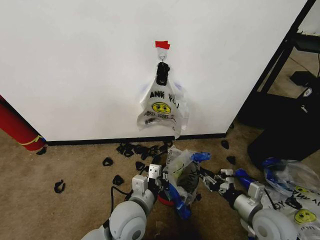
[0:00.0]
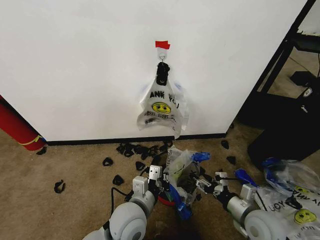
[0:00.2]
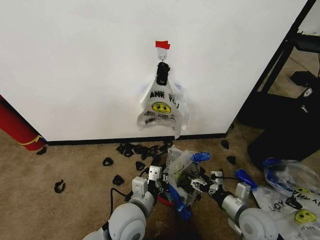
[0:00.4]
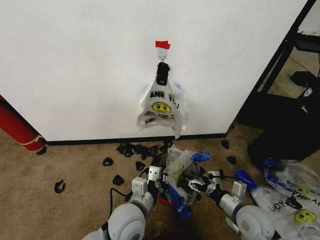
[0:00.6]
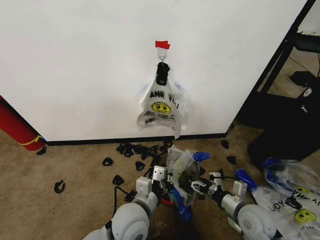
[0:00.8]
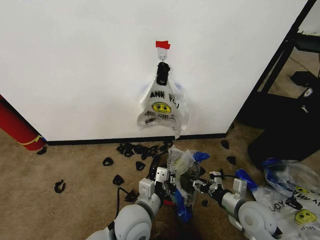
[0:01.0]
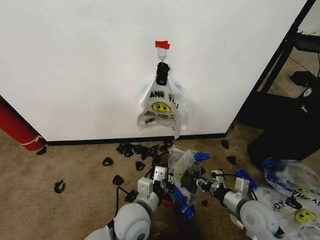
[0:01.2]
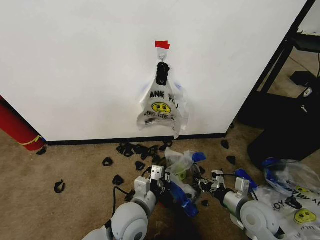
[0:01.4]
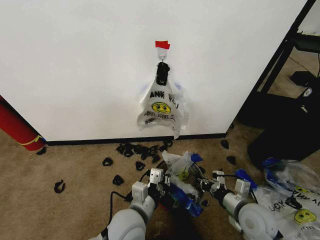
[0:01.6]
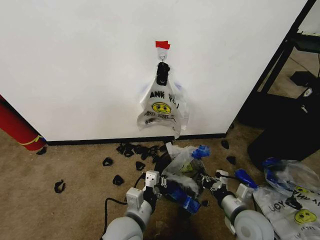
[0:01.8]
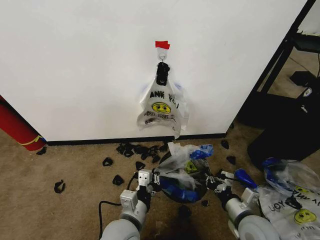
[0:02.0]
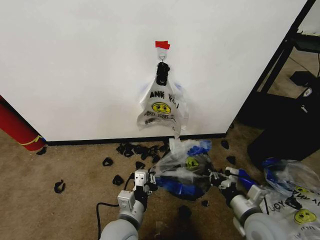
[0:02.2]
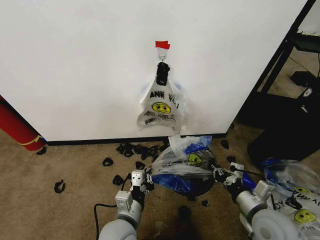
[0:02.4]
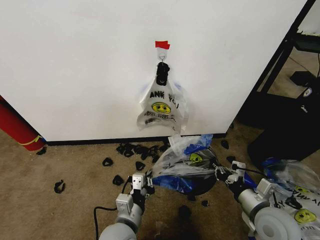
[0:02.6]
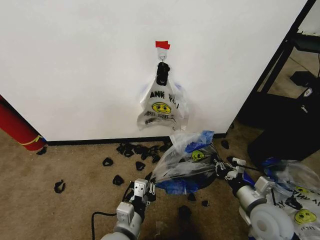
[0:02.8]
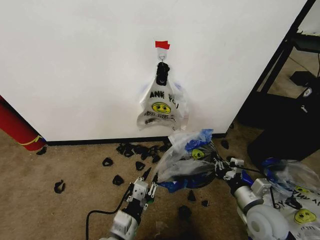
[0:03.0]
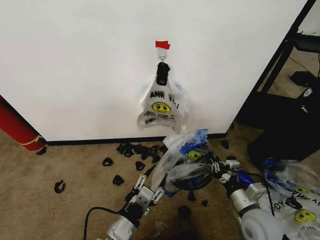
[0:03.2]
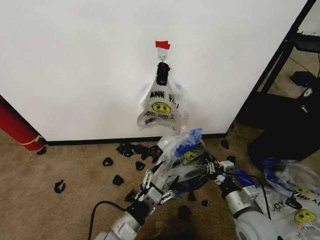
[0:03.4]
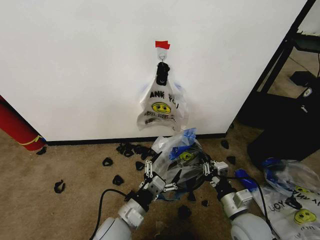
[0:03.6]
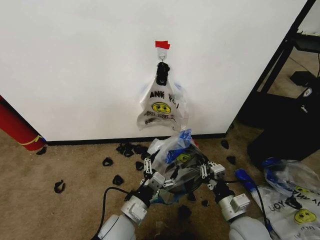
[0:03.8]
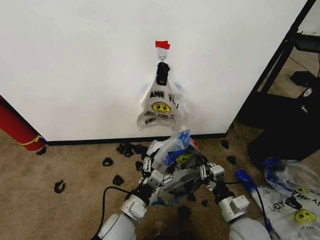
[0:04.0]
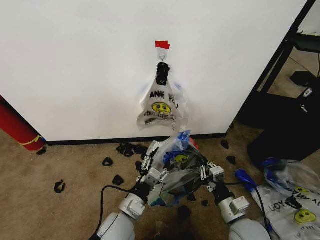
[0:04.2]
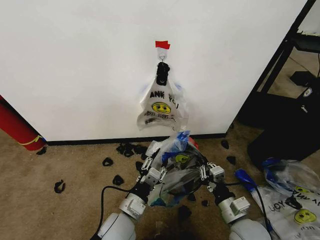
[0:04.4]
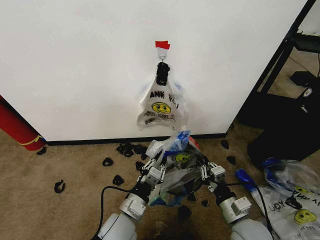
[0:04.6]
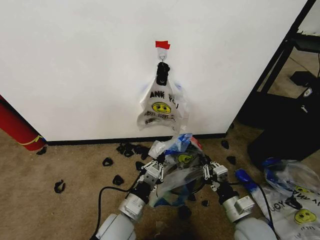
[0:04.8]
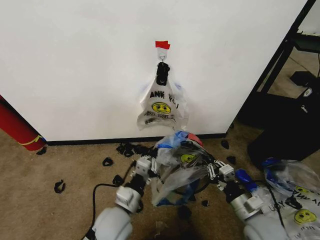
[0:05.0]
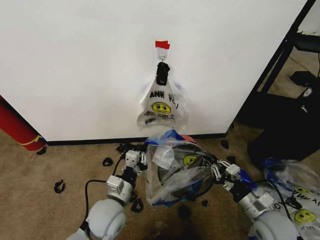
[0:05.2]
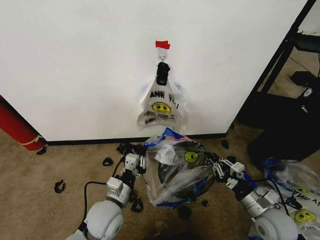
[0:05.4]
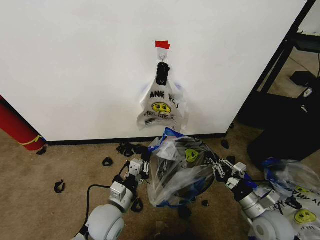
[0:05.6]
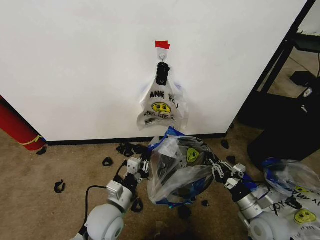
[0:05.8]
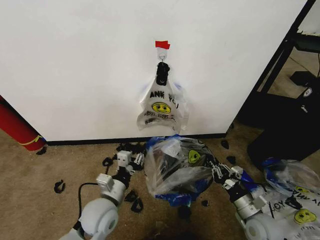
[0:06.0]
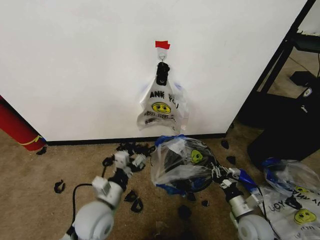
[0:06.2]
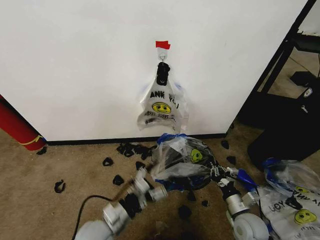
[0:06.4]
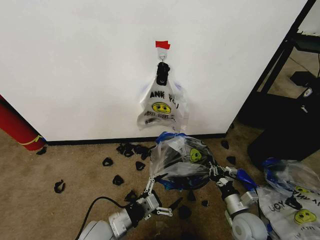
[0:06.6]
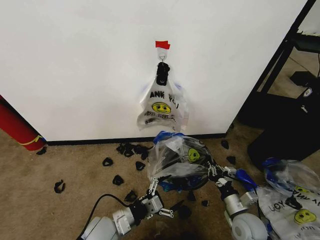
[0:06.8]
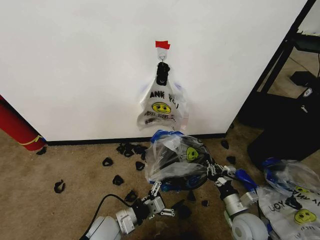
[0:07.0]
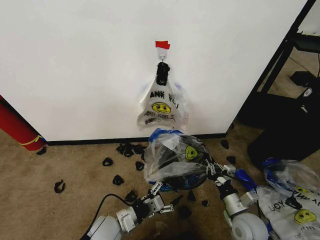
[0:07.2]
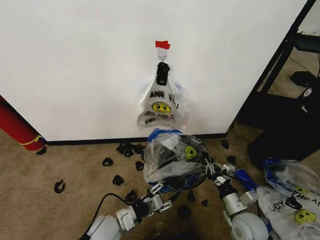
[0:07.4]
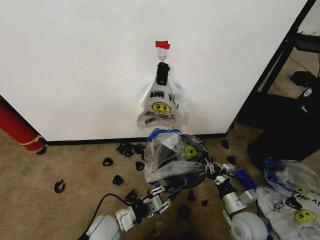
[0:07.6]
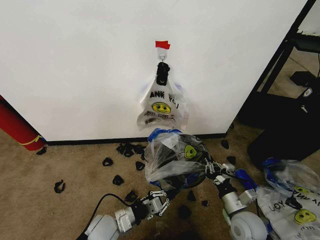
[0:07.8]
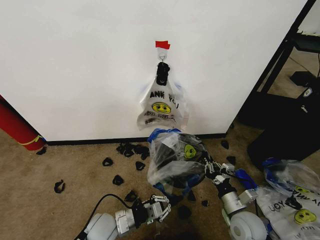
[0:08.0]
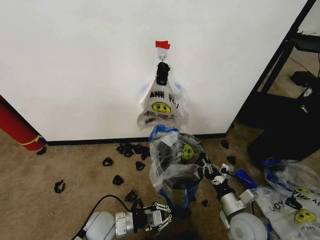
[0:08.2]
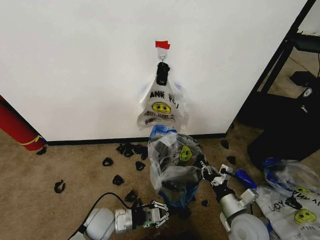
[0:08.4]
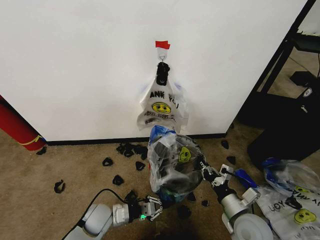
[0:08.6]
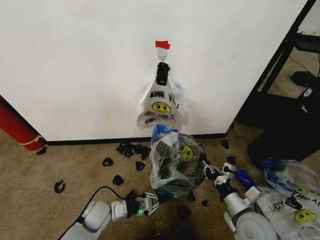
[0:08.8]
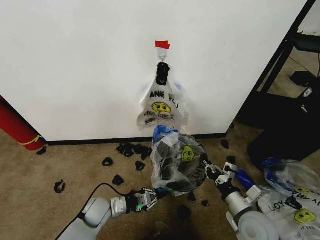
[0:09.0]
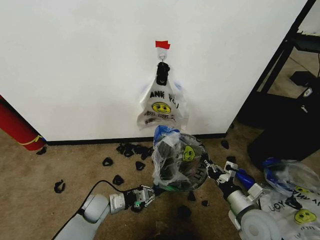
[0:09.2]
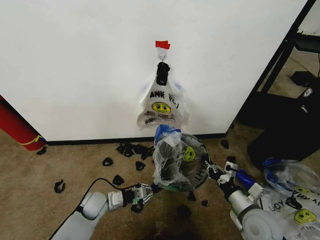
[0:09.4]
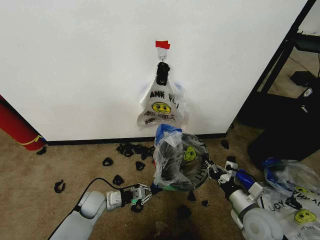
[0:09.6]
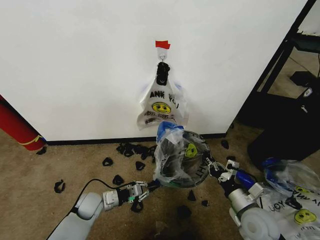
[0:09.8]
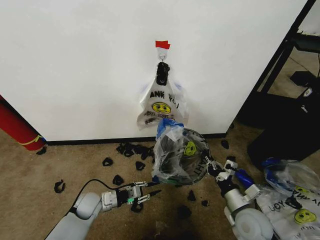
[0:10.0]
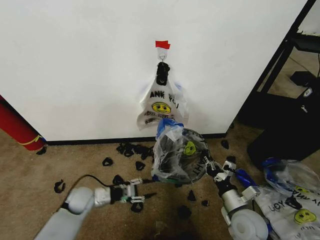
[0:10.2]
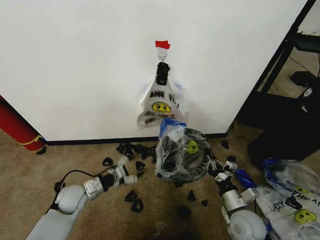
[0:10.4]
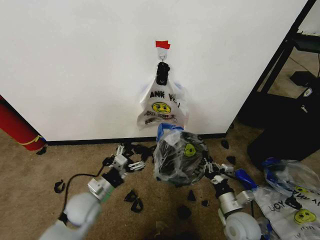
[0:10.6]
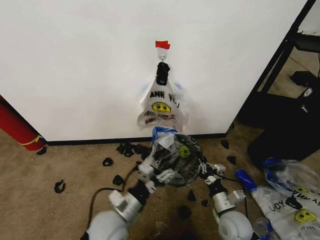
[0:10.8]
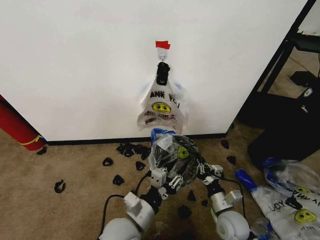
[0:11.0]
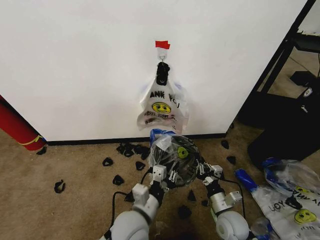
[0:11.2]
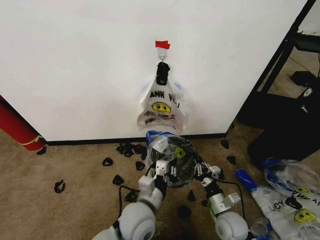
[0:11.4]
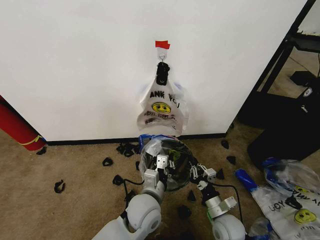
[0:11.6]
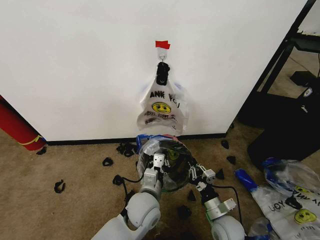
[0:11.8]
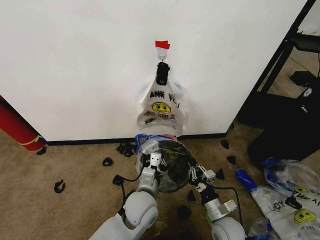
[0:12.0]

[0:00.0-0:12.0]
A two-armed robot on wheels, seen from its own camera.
Task of the whole recording: Pick up the garbage bag from the wall and place it over the trash bin.
0:00.0 to 0:01.6: The right gripper closes.
0:01.6 to 0:03.0: The left gripper is displaced backward by some 5 cm.
0:03.0 to 0:04.4: The right gripper is displaced to the left by roughly 5 cm; the left gripper travels forward by some 5 cm, and opens, then closes again.
0:04.4 to 0:06.0: The right gripper goes roughly 10 cm to the right and downward. Meanwhile the left gripper is displaced to the left by roughly 5 cm.
0:06.0 to 0:07.6: The right gripper changes place by about 5 cm. Meanwhile the left gripper travels downward by approximately 10 cm, and opens, then closes again.
0:07.6 to 0:09.0: The right gripper moves upward, about 5 cm. The left gripper heads forward and to the left, covering approximately 10 cm.
0:09.0 to 0:10.4: The left gripper heads to the left and upward, covering about 10 cm, and opens.
0:10.4 to 0:12.0: The right gripper changes place by roughly 5 cm; the left gripper goes roughly 25 cm to the right, and closes up.

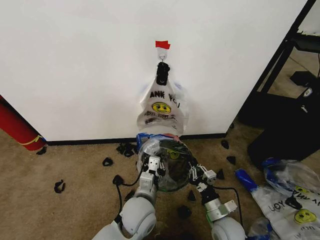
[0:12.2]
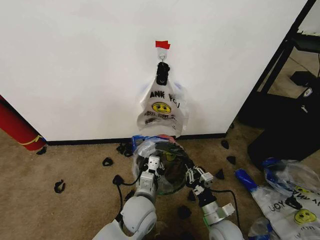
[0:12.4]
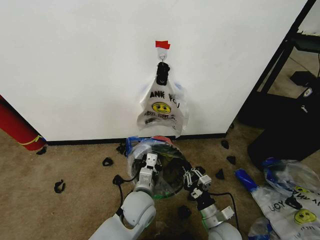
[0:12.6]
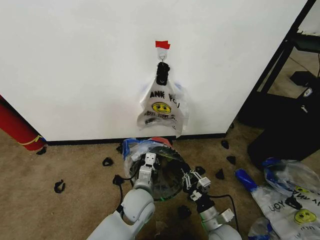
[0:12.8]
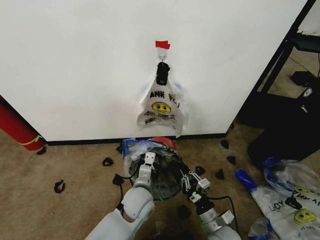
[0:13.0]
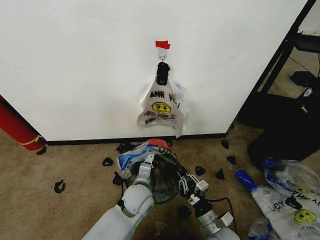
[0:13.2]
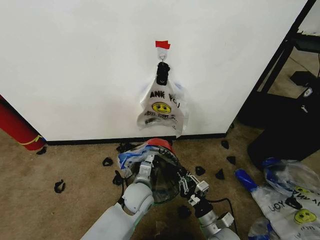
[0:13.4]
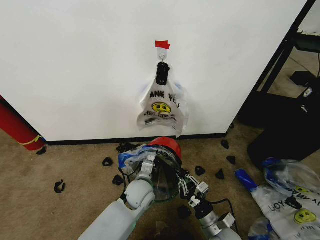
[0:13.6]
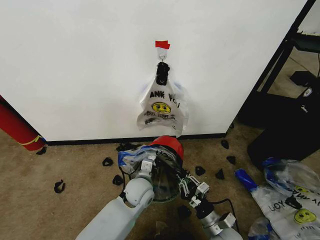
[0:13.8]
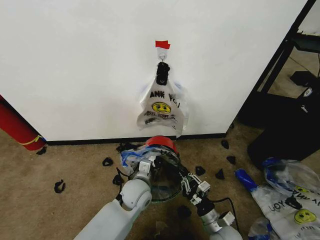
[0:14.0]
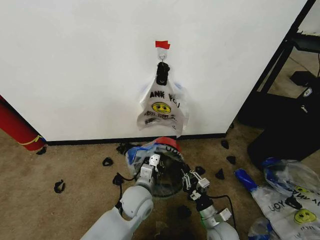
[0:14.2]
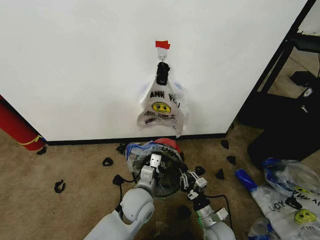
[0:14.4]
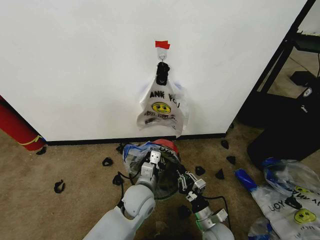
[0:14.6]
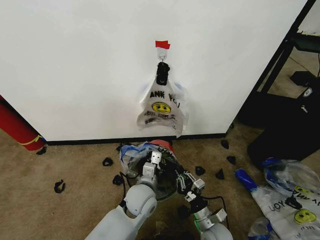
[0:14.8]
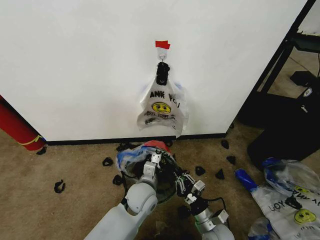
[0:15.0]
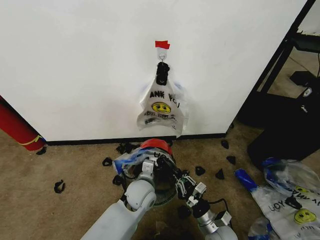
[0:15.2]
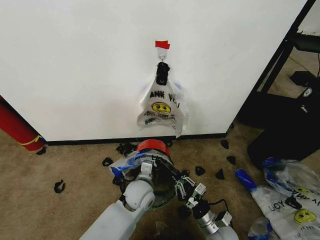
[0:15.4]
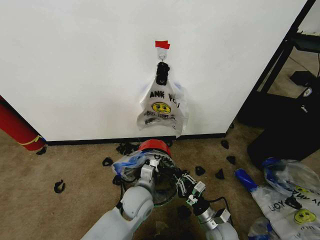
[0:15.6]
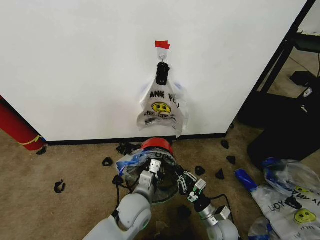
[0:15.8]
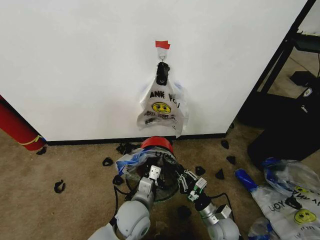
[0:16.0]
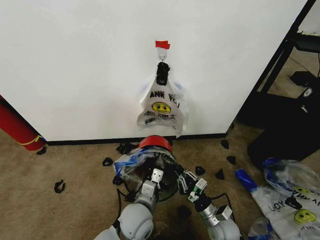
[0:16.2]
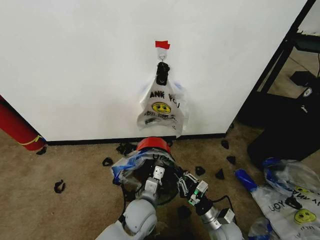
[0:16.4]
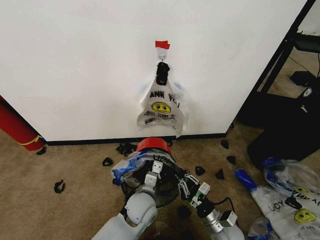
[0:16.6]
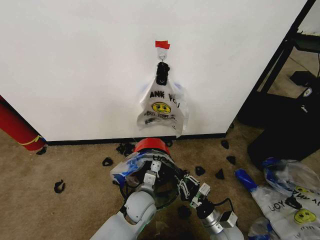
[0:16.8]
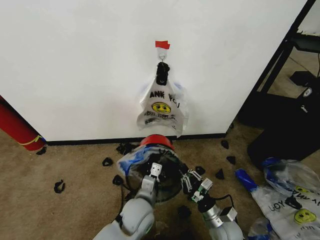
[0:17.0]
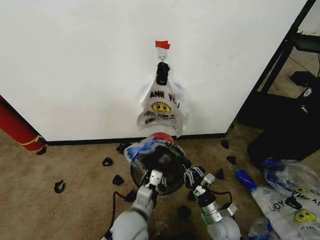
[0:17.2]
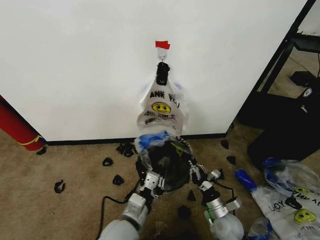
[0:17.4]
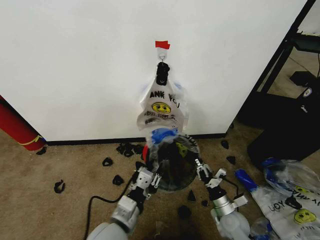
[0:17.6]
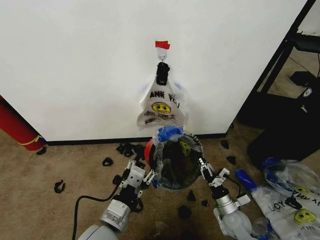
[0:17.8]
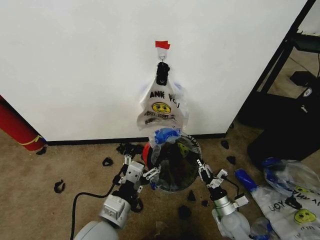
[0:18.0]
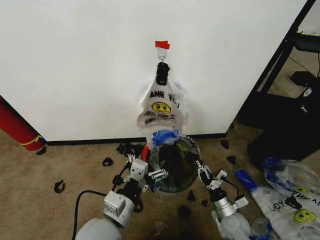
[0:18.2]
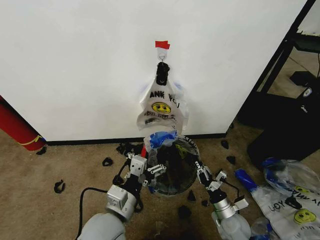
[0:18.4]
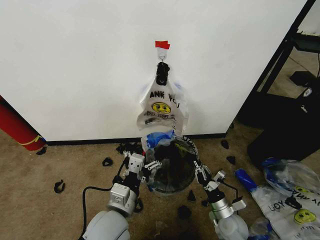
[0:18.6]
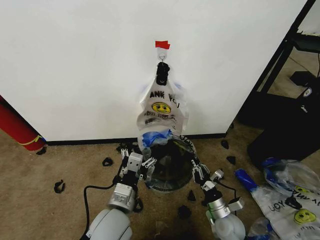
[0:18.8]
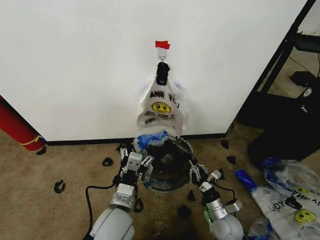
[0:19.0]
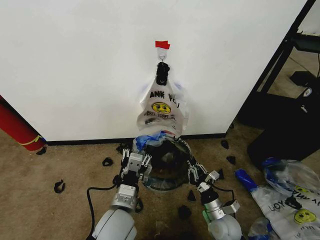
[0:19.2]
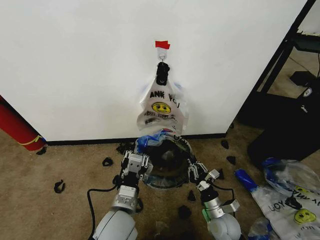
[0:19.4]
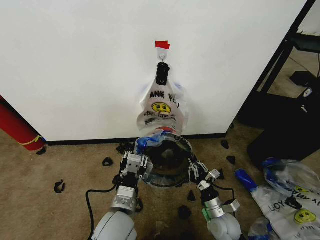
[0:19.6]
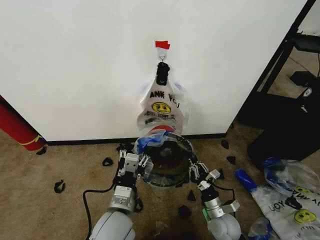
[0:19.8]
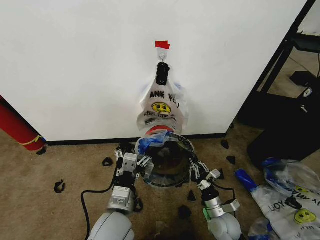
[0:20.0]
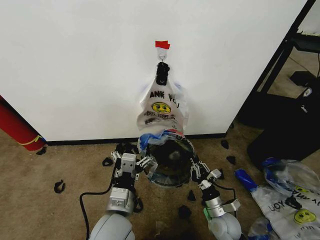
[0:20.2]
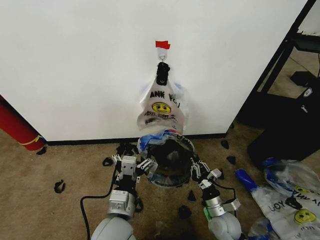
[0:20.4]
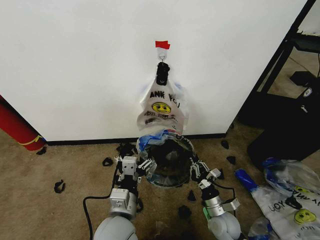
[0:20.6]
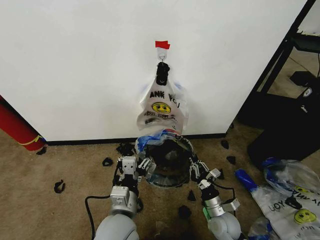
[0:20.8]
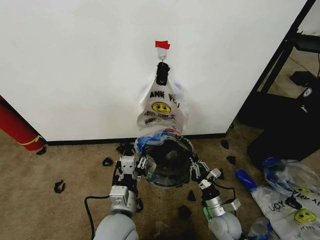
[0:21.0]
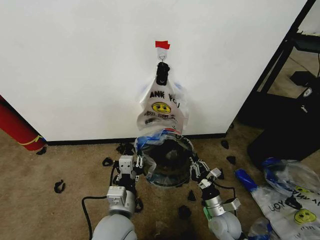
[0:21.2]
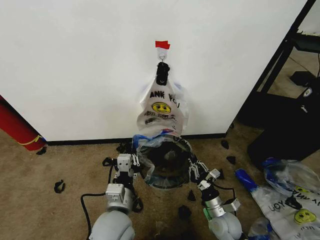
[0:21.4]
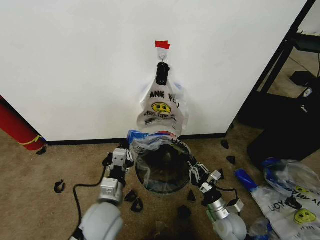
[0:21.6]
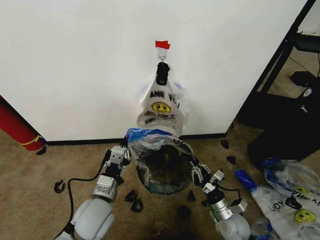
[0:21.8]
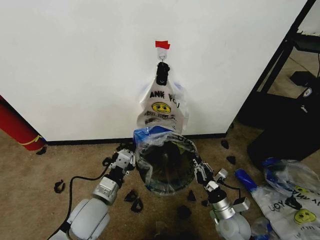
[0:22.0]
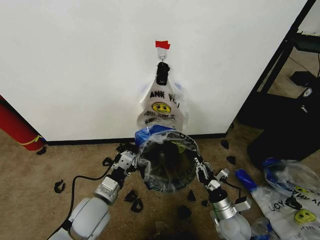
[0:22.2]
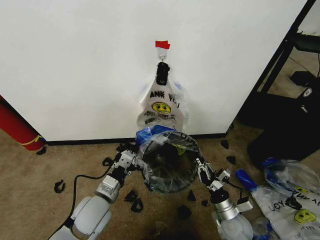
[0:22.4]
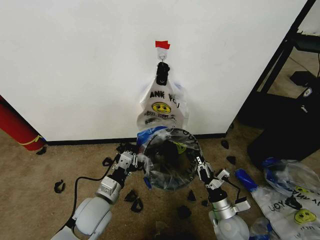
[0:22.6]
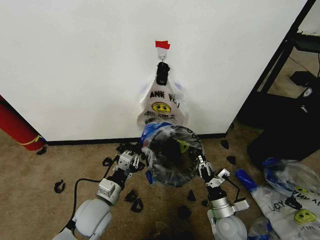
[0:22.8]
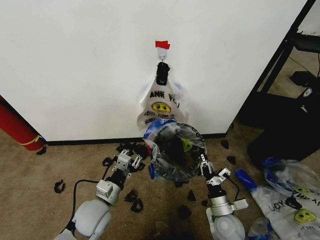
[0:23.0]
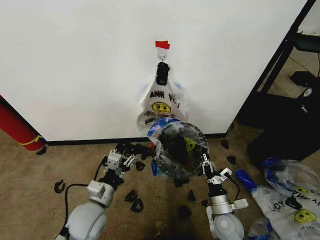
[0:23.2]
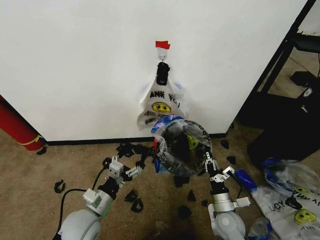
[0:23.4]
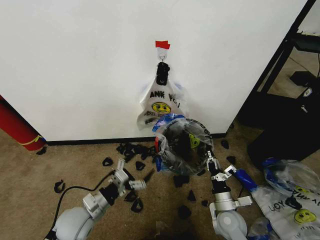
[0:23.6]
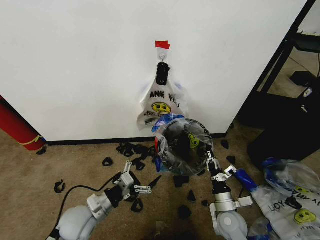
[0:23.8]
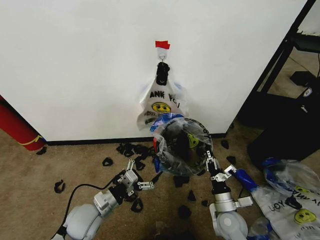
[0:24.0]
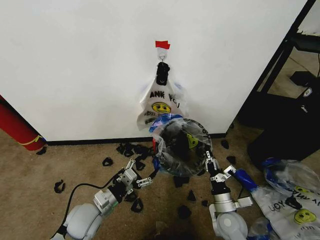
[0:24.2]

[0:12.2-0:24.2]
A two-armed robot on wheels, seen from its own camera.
Task of the whole recording: Pick up the garbage bag from the wall and place it over the trash bin.
0:12.2 to 0:13.8: The left gripper heads forward, covering some 10 cm.
0:13.8 to 0:15.2: The grippers make only small movements.
0:16.6 to 0:18.2: The left gripper moves upward, backward and to the left, roughly 20 cm, and opens up, while the right gripper shifts by approximately 5 cm.
0:18.2 to 0:19.8: The right gripper shifts by approximately 5 cm; the left gripper closes up.
0:19.8 to 0:21.2: The left gripper opens, then closes again.
0:21.2 to 0:22.6: The left gripper travels to the left and forward by some 10 cm.
0:22.6 to 0:24.2: The left gripper changes place by some 5 cm, and opens up.
